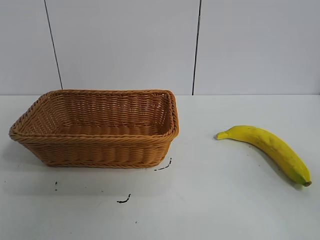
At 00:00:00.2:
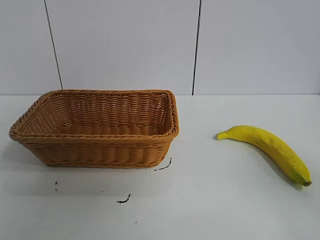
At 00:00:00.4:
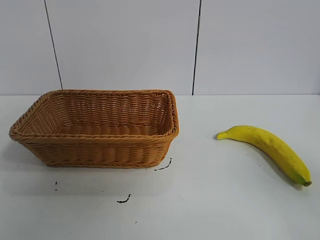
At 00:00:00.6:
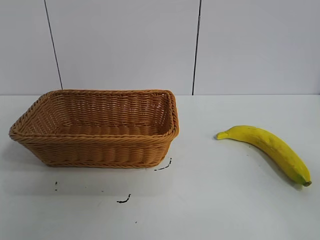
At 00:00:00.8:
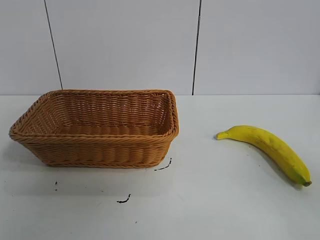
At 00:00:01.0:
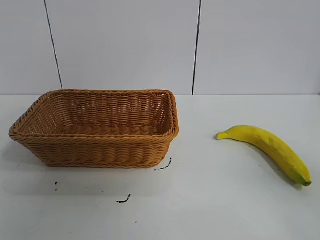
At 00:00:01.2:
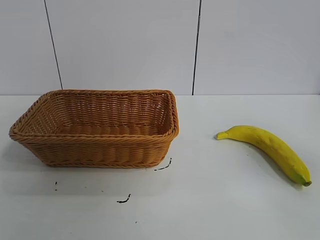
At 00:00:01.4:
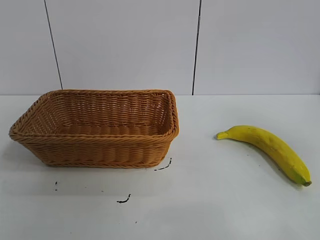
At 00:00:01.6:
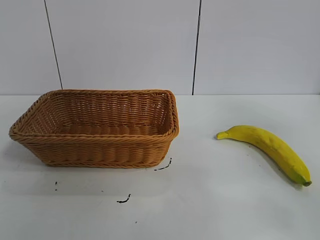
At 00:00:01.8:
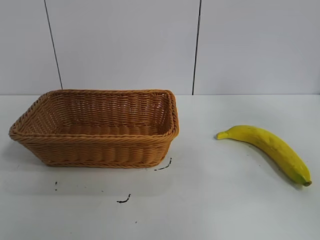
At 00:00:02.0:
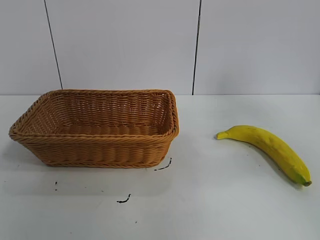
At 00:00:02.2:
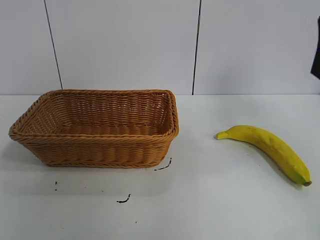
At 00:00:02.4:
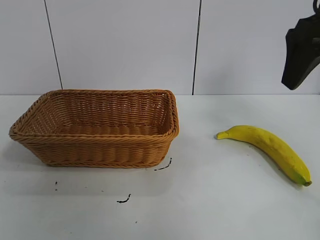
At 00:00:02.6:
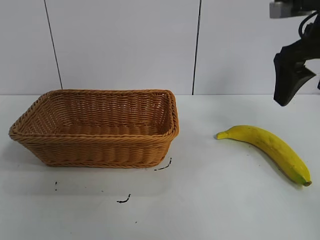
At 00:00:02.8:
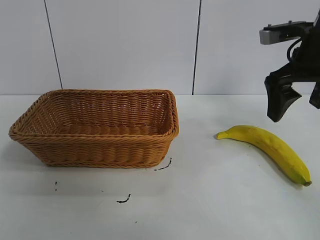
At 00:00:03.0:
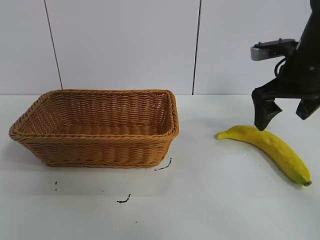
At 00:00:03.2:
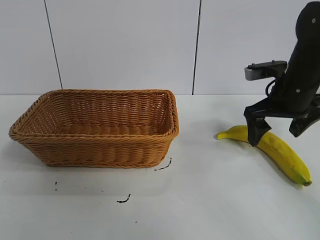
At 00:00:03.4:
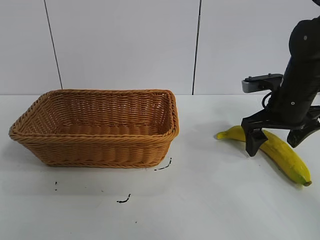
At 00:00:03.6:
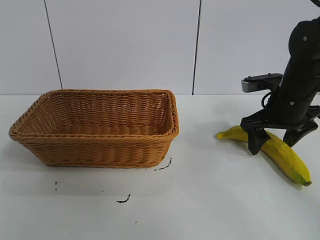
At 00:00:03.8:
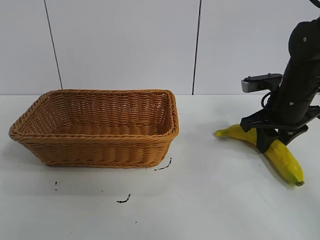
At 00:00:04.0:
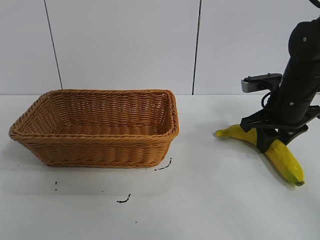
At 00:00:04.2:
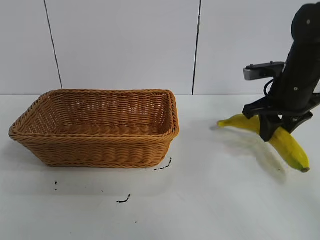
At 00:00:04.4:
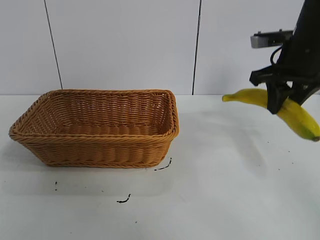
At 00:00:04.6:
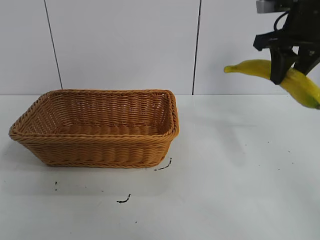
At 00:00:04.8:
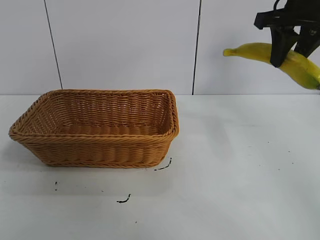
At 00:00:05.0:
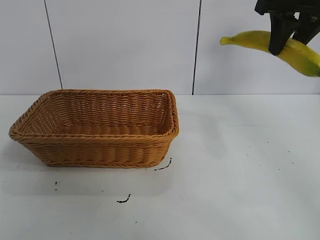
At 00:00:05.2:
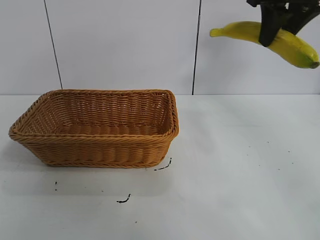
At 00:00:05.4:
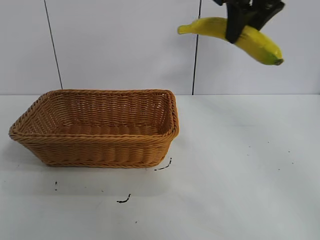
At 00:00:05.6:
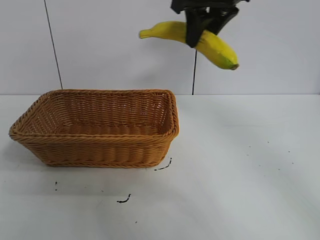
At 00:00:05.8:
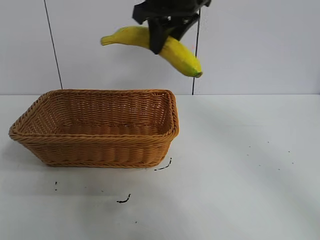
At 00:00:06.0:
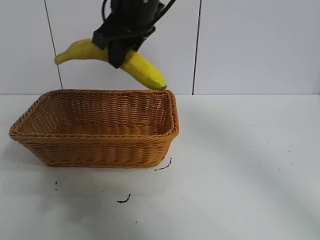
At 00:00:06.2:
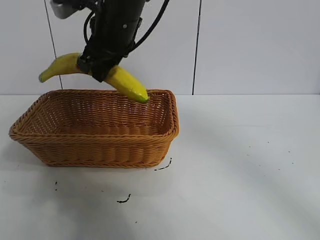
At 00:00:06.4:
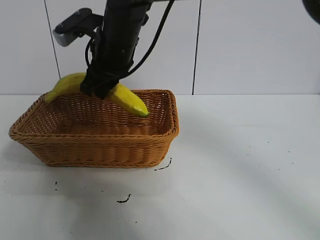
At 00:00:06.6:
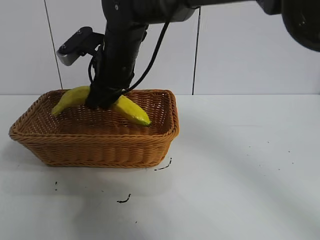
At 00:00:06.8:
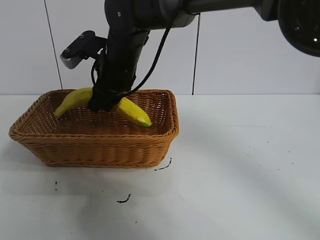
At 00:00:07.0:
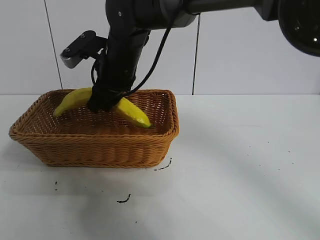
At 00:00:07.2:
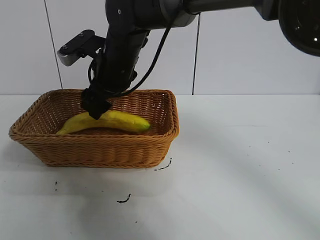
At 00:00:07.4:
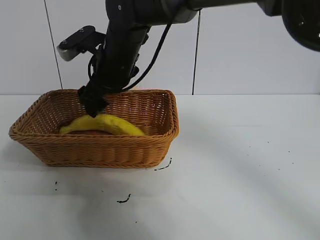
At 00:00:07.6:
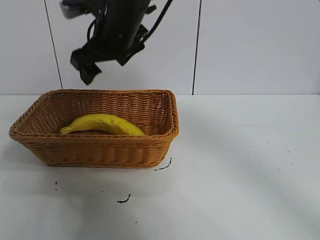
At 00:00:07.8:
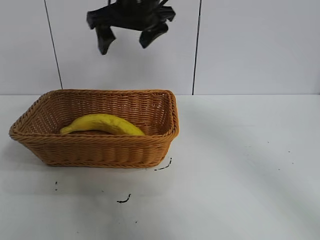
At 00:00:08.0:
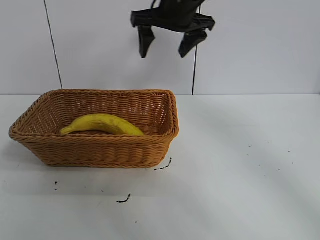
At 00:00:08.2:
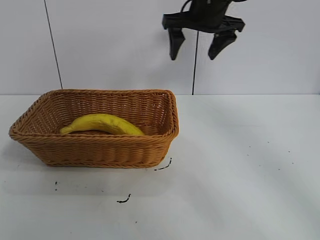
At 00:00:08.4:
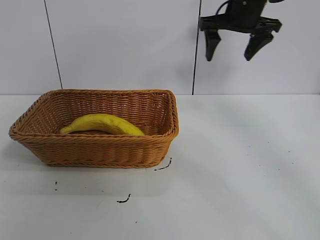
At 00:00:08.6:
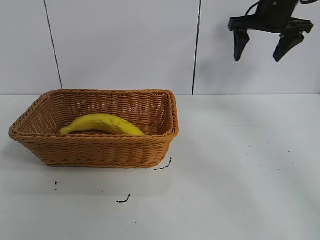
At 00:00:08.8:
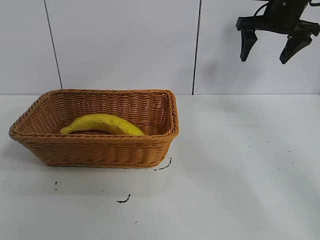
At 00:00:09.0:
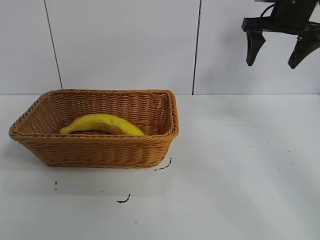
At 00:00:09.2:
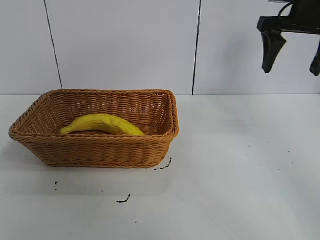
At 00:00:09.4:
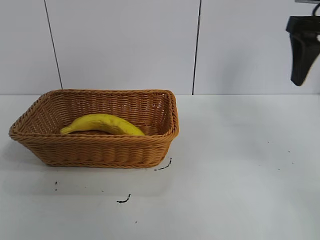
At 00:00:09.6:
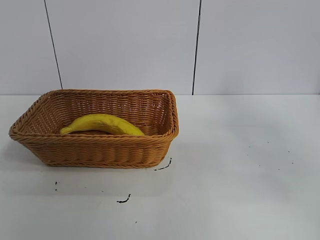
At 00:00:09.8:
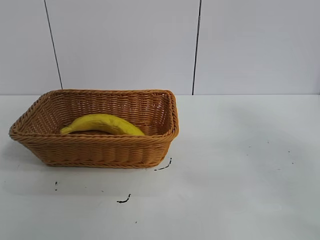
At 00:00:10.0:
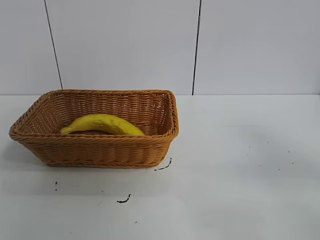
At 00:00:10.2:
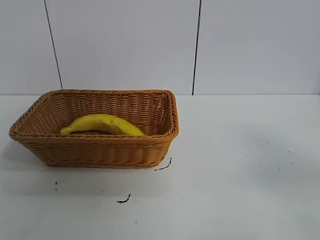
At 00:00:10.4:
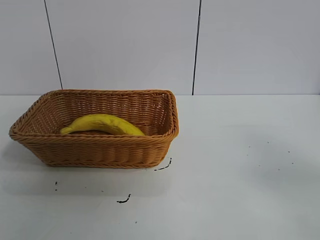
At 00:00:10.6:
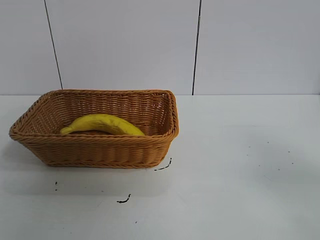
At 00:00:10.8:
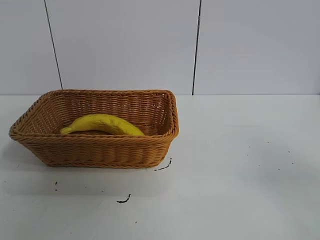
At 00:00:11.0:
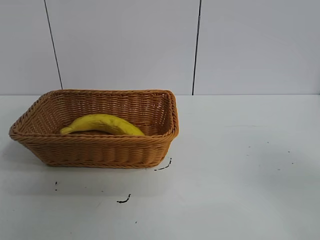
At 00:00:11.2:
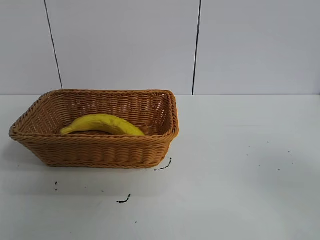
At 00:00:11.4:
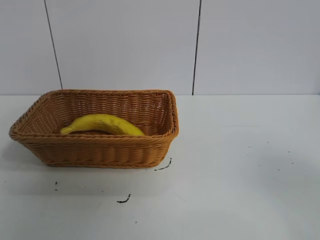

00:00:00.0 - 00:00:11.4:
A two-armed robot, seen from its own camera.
Task of the whole recording: pick up the banana and put it into the basket.
Step, 00:00:01.0 - 00:00:03.8: Grasp the banana with right gripper.
Step, 00:00:04.0 - 00:00:07.4: Place the banana in the basket with right gripper.

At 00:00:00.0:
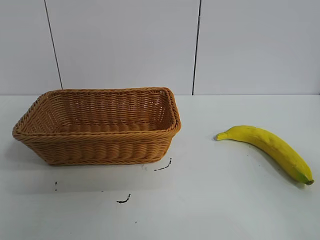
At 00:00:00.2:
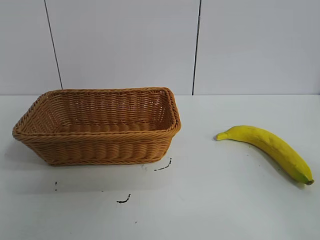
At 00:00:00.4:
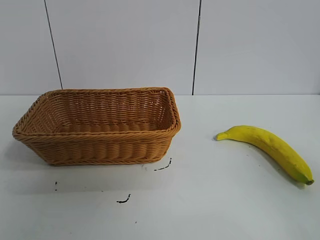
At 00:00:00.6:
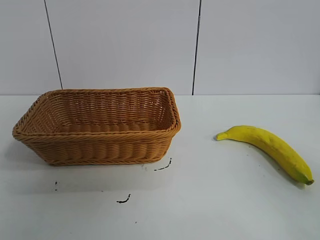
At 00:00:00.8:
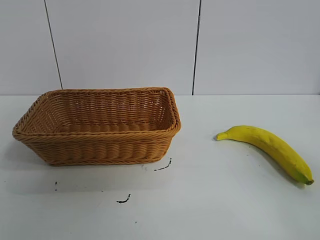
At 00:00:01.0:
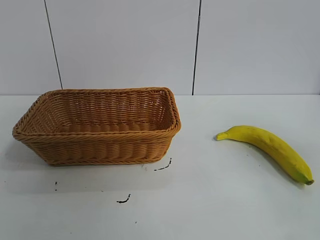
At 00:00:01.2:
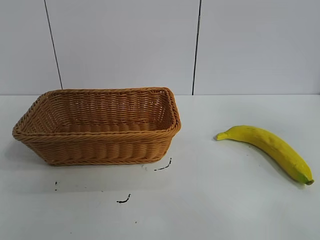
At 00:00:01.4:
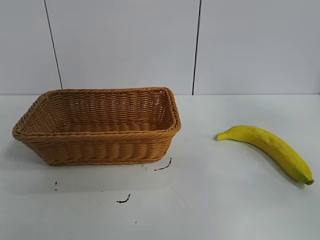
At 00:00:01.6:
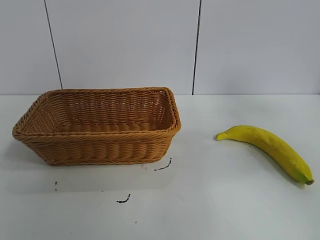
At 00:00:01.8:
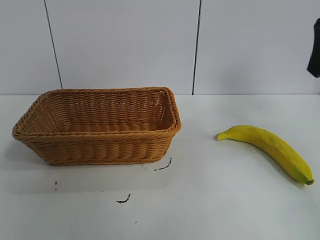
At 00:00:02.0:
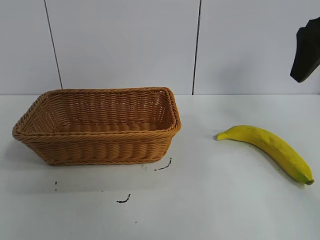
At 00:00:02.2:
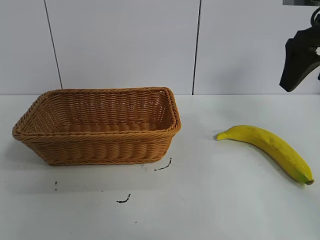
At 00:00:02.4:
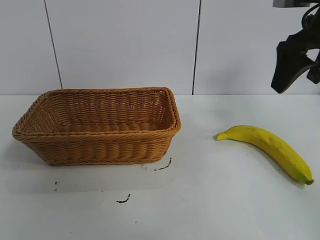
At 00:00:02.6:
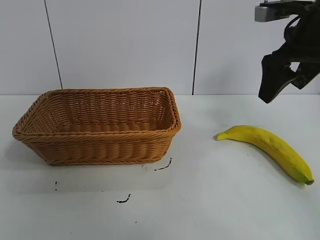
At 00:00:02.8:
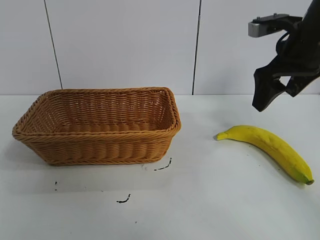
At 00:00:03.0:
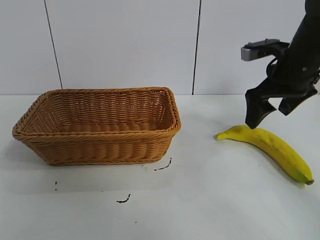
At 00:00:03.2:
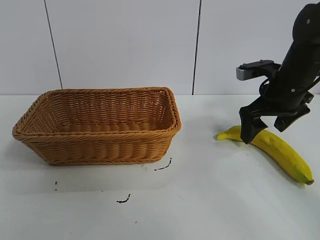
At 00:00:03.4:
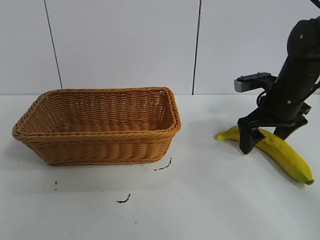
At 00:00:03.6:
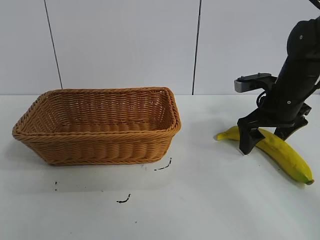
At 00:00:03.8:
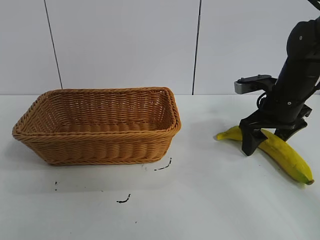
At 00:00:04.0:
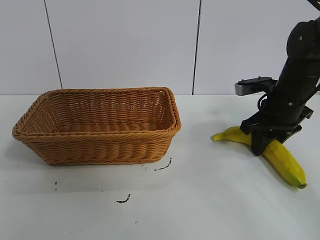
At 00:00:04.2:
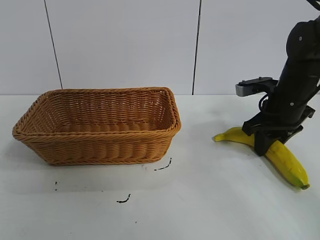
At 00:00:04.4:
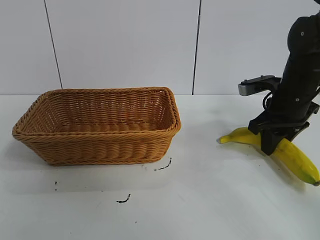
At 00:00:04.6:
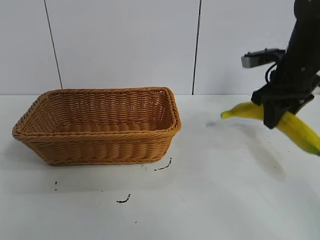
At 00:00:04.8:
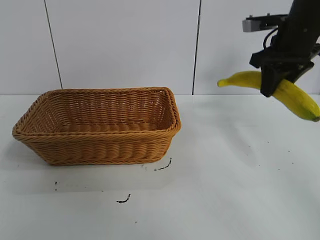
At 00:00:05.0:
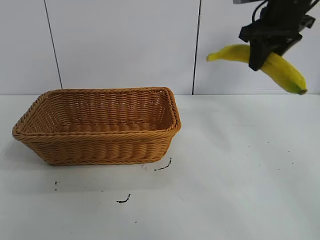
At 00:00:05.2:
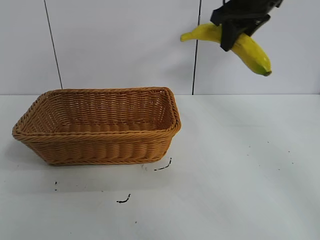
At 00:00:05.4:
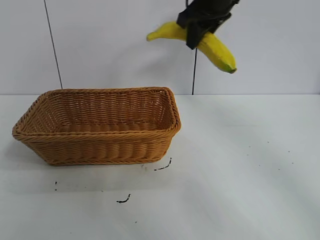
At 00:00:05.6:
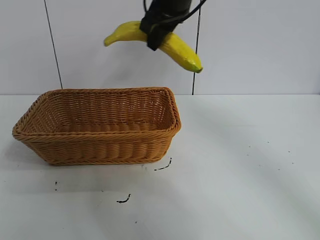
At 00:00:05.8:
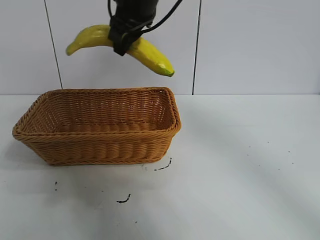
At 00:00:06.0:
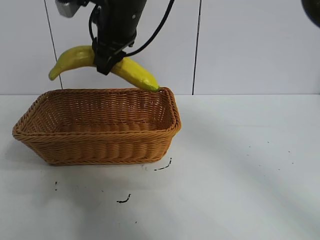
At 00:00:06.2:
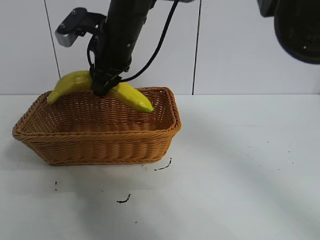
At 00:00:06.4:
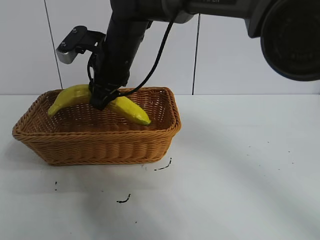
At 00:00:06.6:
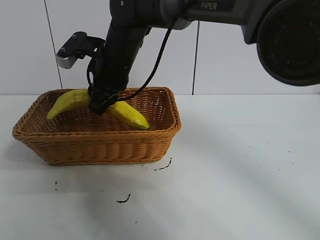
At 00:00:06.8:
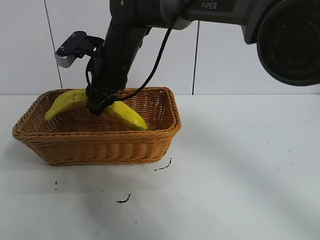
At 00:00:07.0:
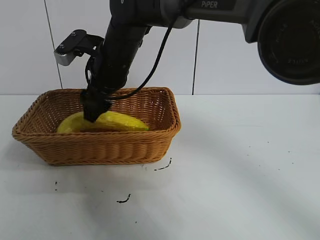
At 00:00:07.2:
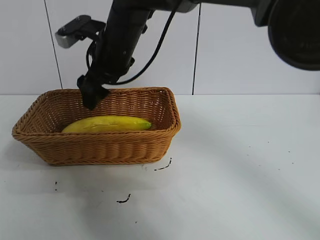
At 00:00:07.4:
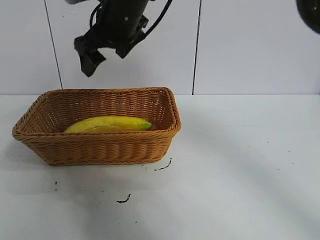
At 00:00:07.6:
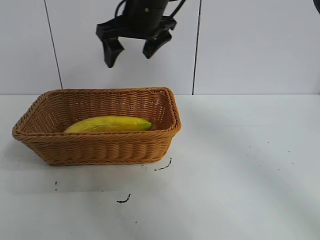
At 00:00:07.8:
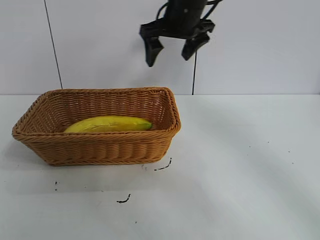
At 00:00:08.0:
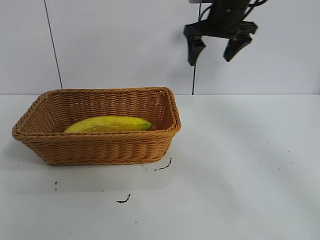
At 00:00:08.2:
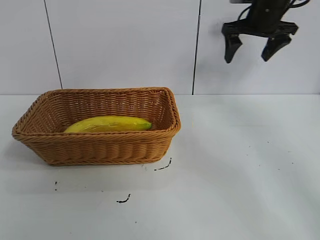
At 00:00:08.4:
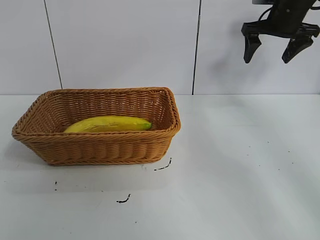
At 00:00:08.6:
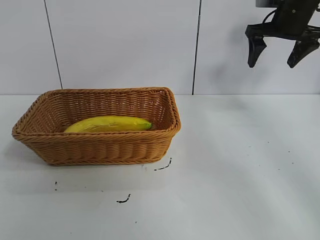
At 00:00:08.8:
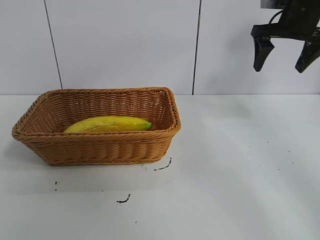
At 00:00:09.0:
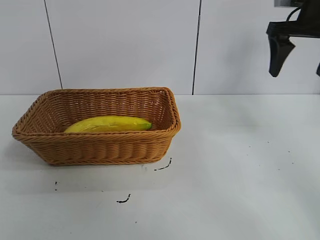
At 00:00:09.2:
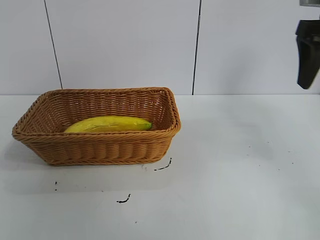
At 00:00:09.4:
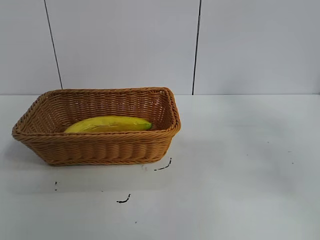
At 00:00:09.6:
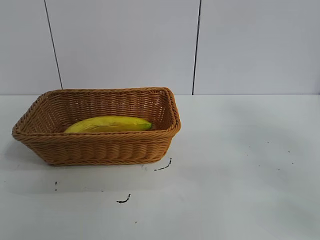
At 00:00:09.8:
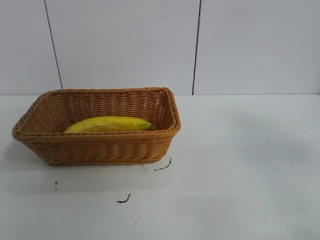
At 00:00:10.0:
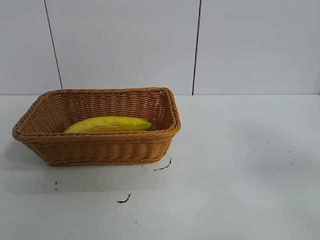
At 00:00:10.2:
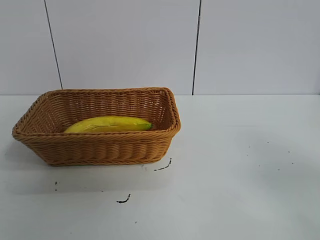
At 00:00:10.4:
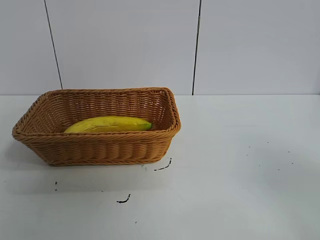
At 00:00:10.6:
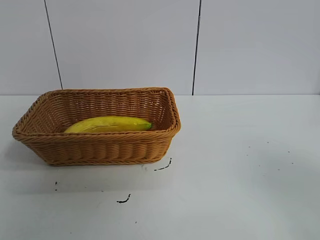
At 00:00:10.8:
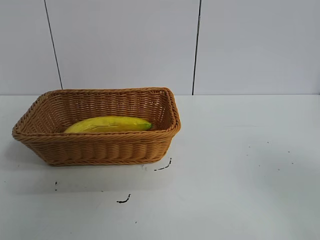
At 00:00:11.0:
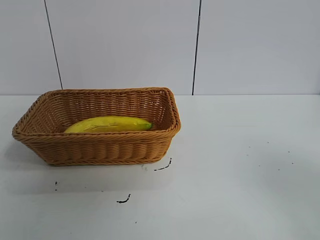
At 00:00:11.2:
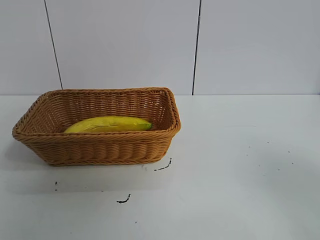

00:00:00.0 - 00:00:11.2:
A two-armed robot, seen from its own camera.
Task of the whole recording: pick up the banana and put it into the basket.
Step, 00:00:00.8 - 00:00:04.0: Grasp the banana with right gripper.
Step, 00:00:04.2 - 00:00:06.8: Place the banana in the basket with right gripper.
